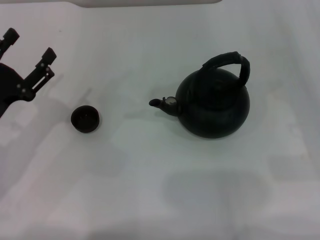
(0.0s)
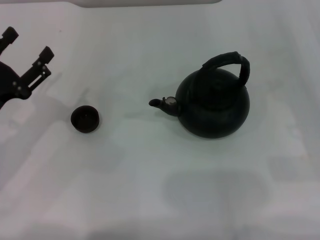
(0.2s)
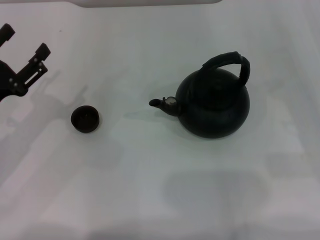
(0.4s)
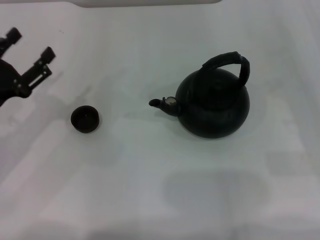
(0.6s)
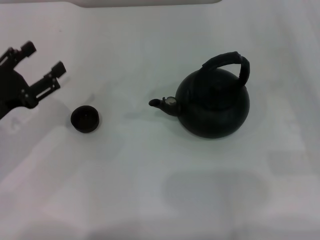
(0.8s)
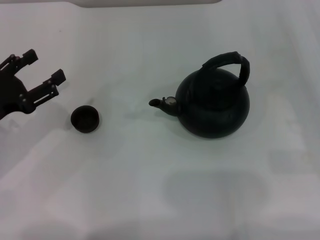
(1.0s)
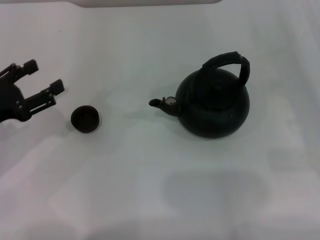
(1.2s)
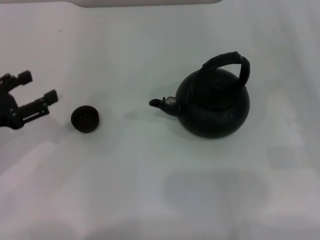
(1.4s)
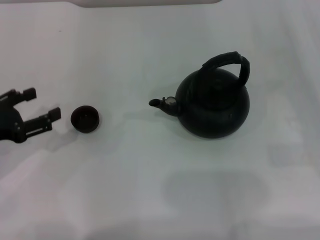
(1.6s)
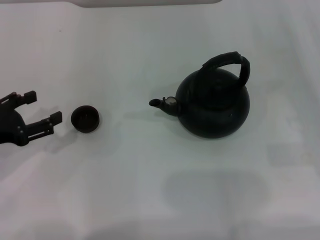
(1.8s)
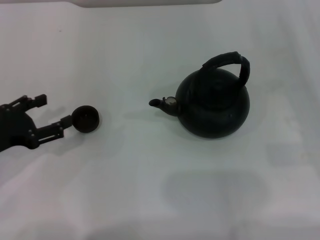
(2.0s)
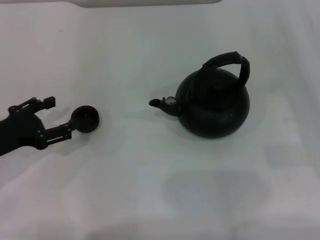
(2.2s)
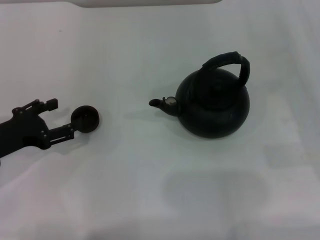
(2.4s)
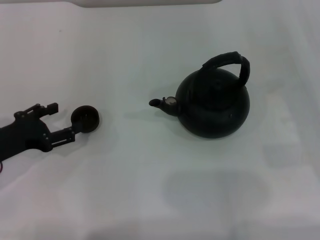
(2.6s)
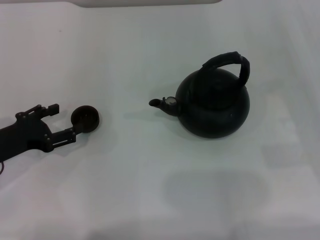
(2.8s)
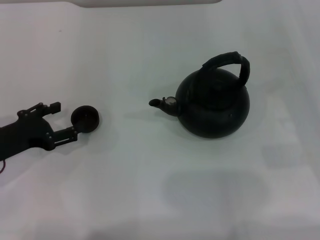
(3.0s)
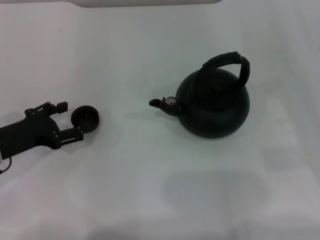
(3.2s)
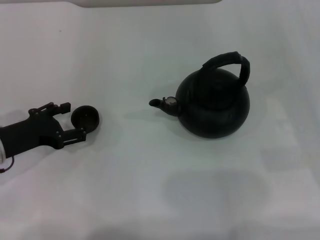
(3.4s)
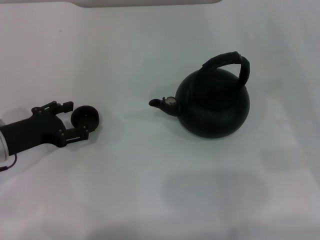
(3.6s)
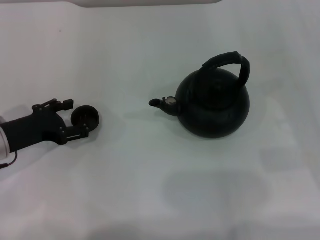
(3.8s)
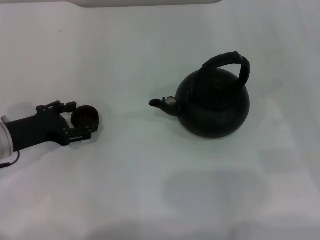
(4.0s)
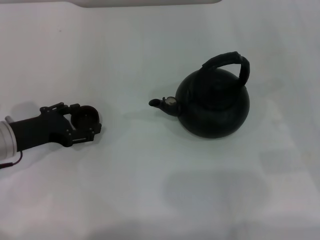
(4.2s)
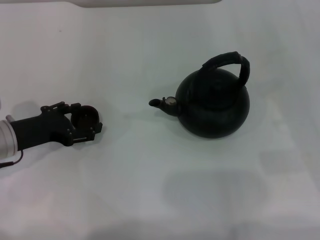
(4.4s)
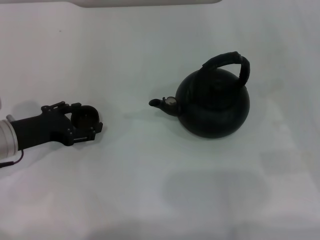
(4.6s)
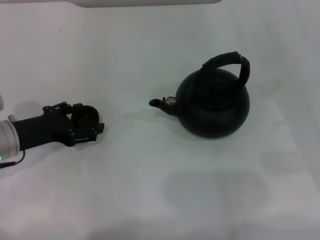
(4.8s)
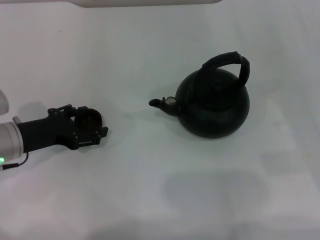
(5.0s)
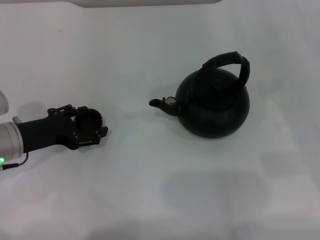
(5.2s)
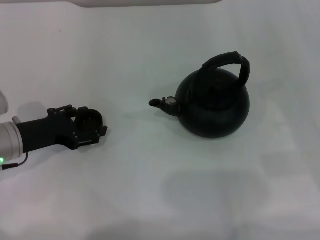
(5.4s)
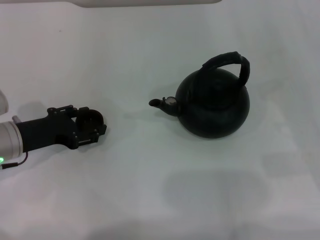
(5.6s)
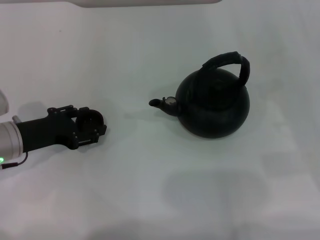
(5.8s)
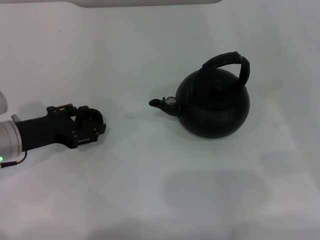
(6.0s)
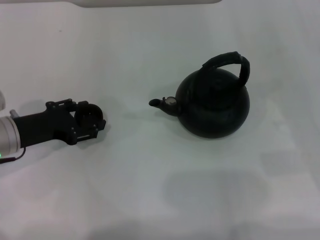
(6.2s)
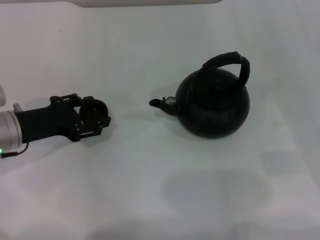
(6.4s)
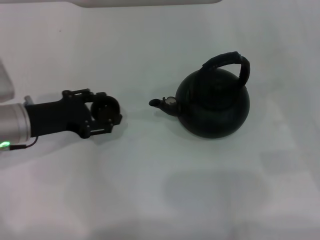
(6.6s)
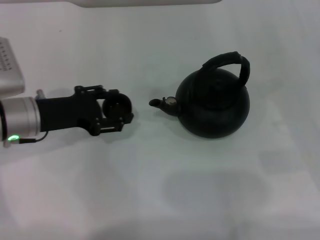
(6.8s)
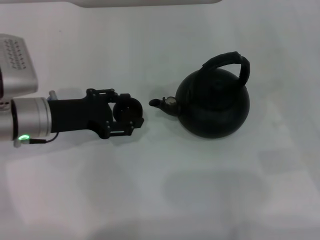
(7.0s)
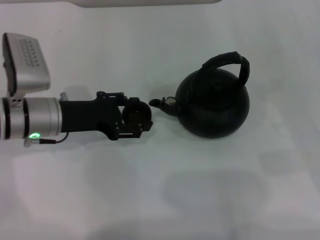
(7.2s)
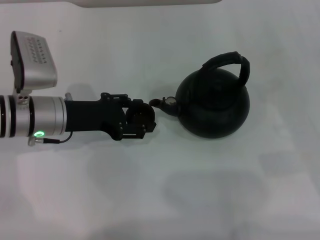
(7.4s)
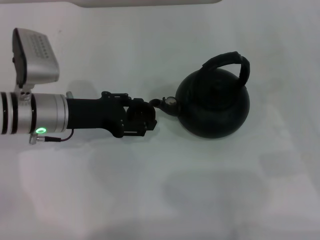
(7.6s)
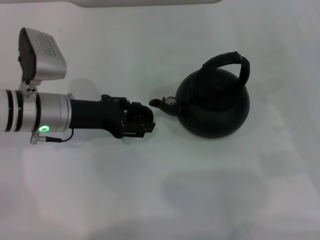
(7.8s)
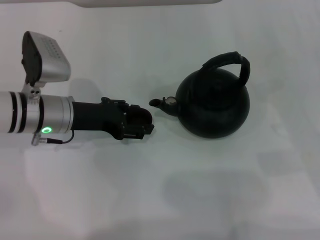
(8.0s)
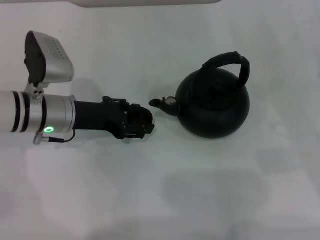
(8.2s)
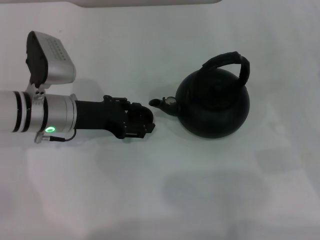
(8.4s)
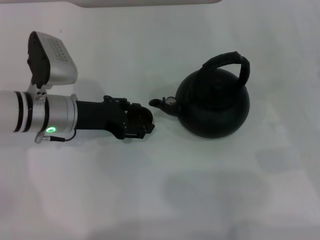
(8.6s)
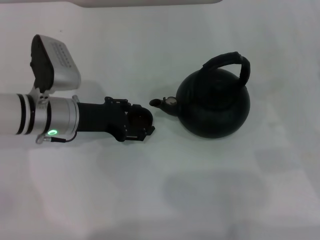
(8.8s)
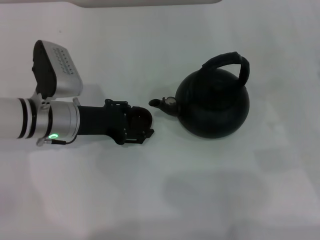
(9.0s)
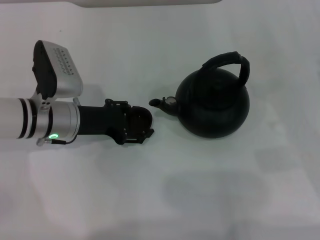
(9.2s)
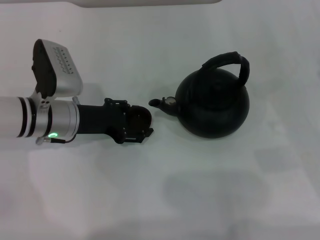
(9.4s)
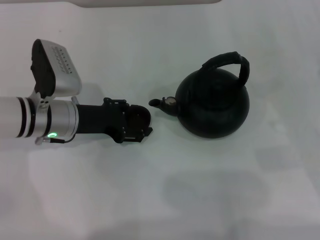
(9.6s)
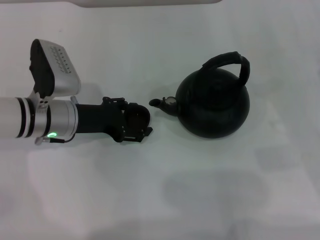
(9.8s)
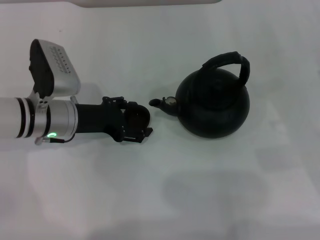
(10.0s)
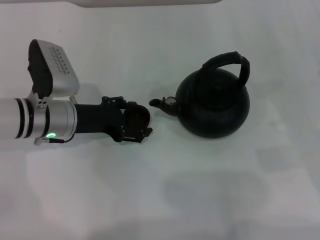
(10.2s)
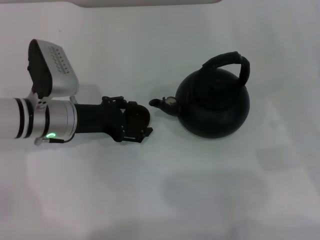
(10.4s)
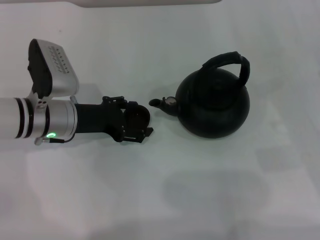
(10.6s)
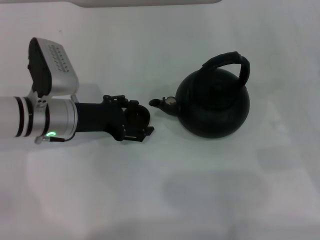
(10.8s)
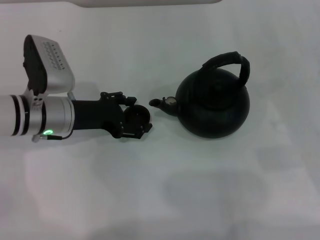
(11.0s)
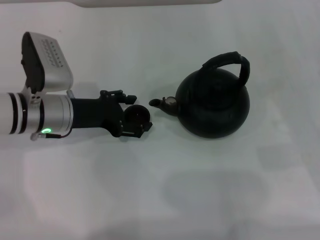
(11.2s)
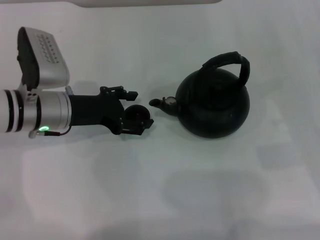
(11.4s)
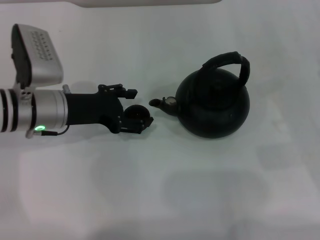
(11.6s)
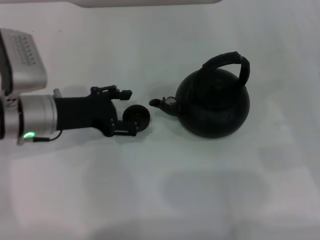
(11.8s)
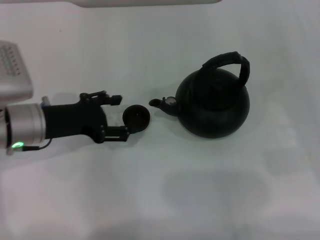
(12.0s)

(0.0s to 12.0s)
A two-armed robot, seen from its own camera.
Task of the whole recording: Grasp the handle of the teapot with one hand and pour tea into the teacup.
Step, 0.0s - 6.6s: Pick up the teacup with the left gripper.
Step, 6.8s - 11.2s: Place the teacup in the center of view with the left gripper.
0.0s - 1.6s: The left gripper ends up roughly 5 cm from where it was.
1.6s - 3.0s: The left gripper ends up roughly 5 cm from where it was.
3.0s - 4.4s: The grippers move only a little.
4.4s - 6.0s: The left gripper closes.
6.0s - 7.6s: The left gripper heads to the right, covering some 5 cm.
7.6s - 9.0s: There are only small adjustments of the grippers.
9.0s - 10.4s: The left gripper opens.
10.4s - 12.0s: The left gripper ends up approximately 5 cm from where it was.

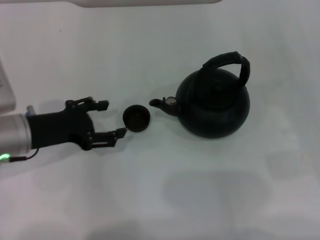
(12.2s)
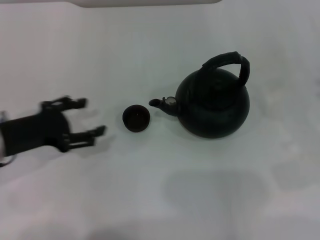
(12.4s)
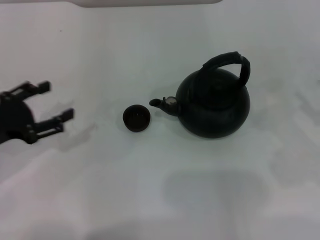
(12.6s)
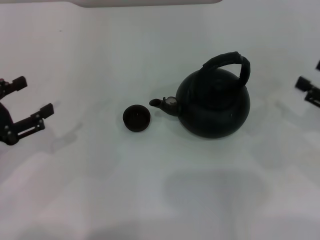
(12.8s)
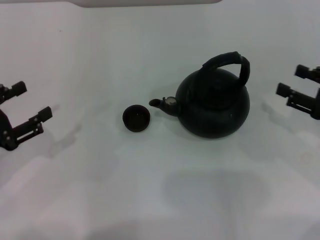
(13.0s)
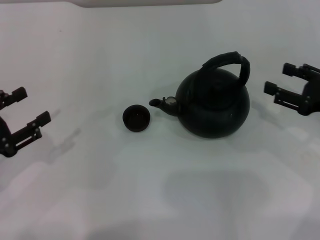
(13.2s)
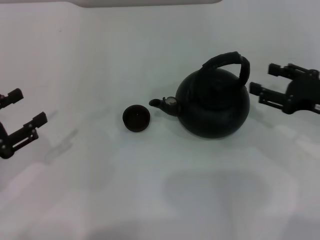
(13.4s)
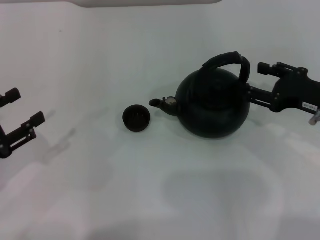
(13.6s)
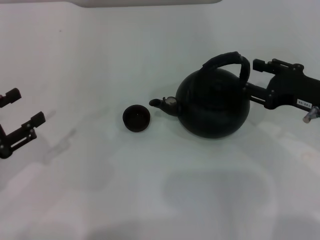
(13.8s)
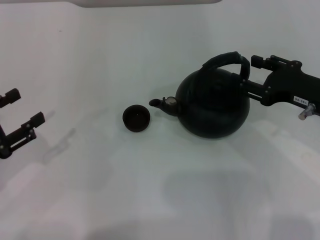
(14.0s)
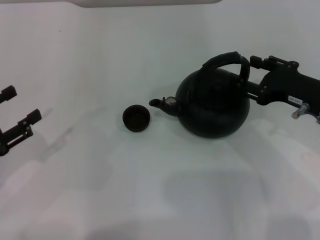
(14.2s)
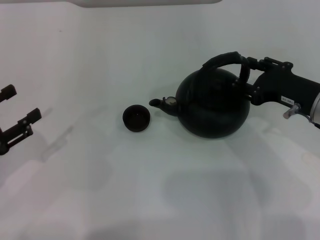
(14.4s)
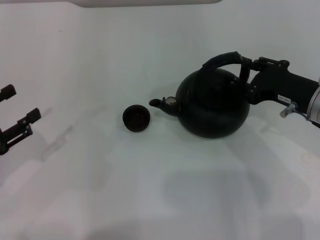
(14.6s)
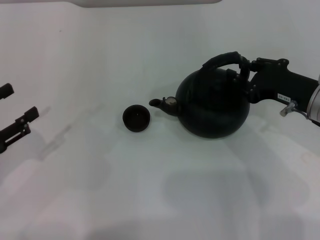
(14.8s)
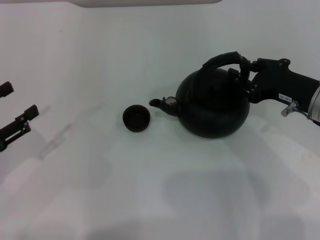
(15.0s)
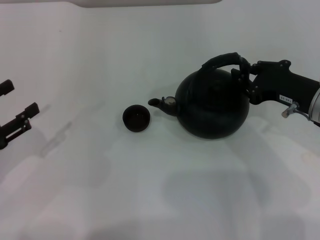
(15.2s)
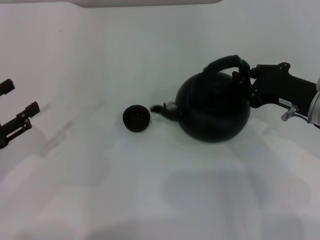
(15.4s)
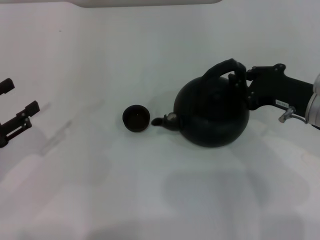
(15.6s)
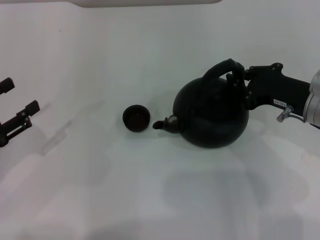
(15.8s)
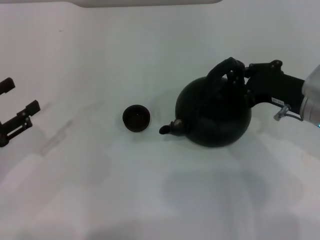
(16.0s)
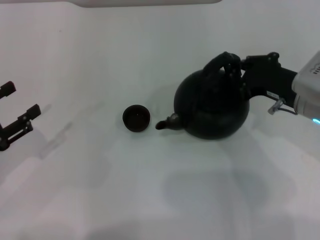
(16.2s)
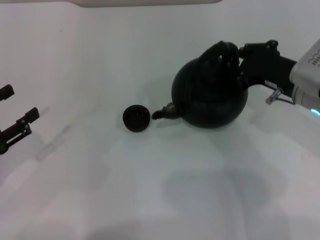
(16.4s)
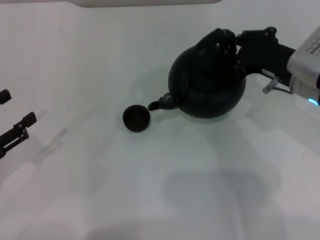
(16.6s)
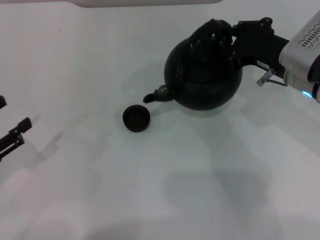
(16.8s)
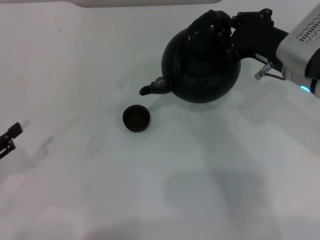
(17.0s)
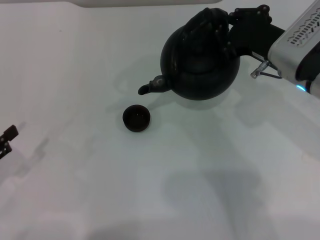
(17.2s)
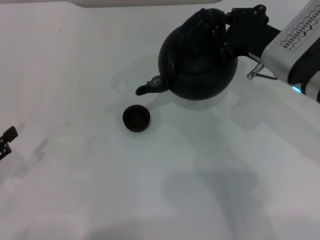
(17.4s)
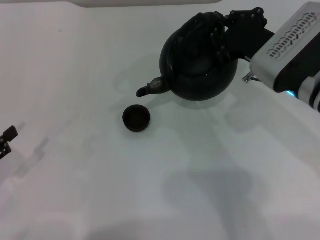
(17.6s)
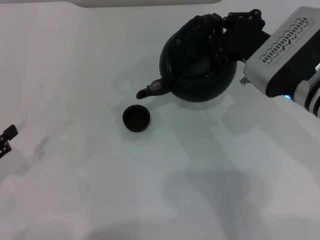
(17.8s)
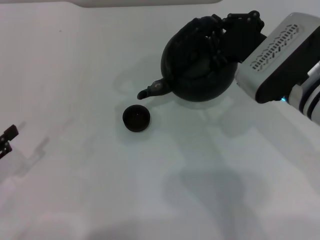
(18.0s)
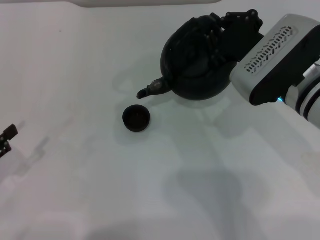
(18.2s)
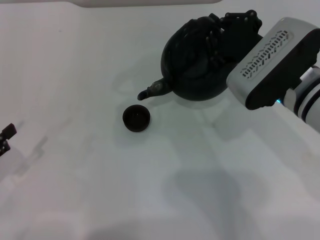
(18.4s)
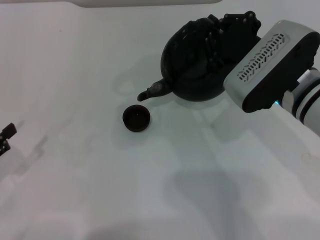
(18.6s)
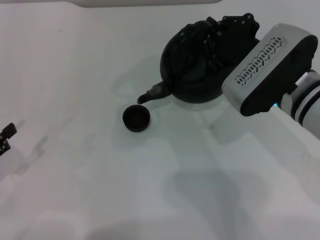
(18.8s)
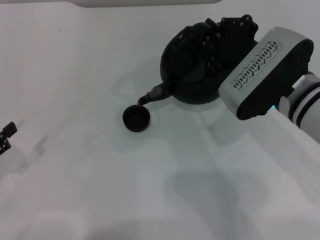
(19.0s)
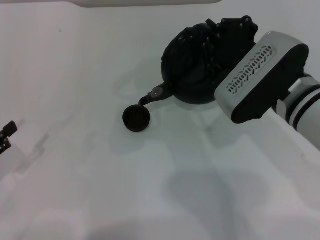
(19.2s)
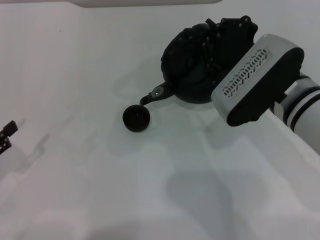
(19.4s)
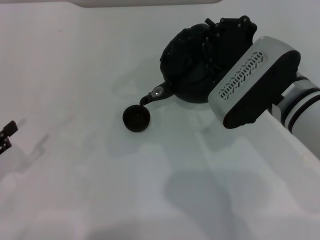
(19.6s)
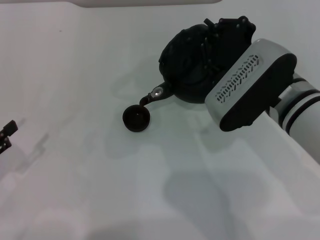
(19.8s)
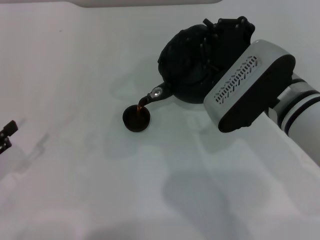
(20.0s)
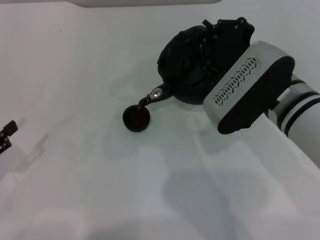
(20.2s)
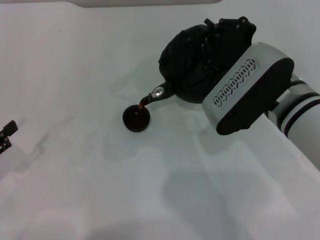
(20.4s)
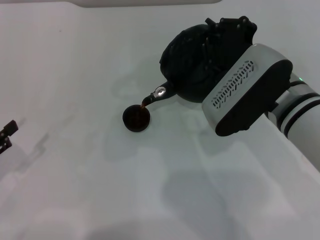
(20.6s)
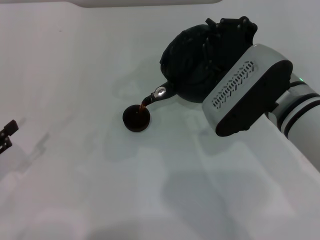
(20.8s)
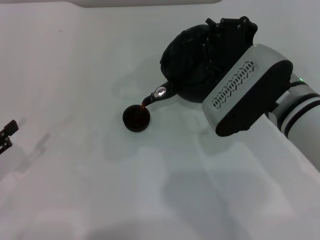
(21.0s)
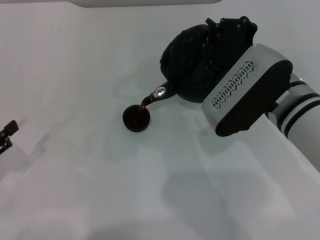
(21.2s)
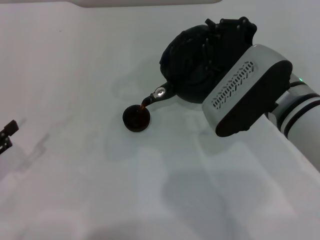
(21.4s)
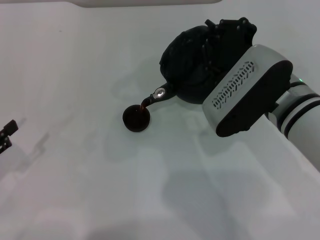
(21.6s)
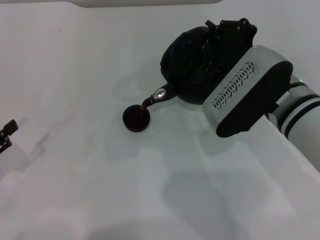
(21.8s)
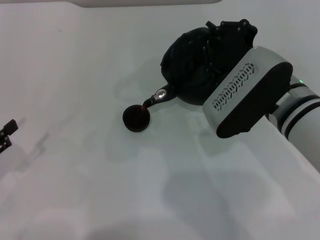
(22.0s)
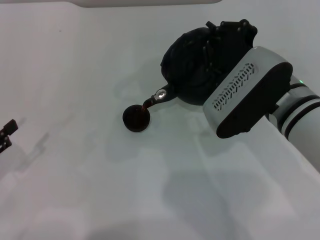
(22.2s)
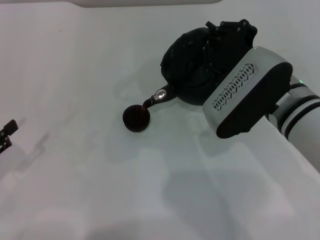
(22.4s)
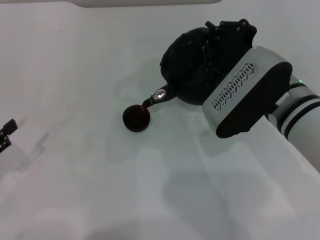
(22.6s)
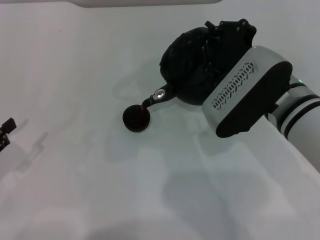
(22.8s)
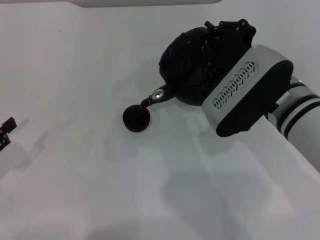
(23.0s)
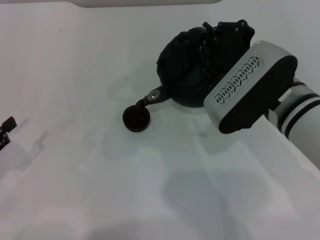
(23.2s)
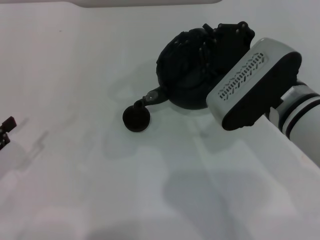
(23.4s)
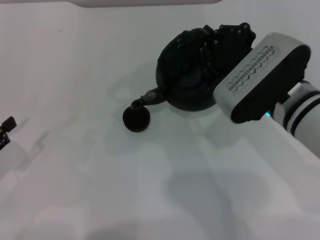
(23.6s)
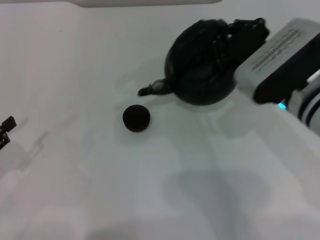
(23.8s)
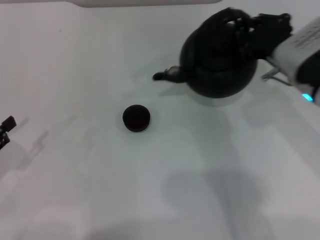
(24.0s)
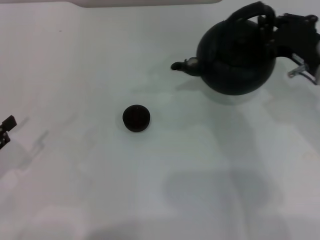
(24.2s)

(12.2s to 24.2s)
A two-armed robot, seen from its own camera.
Task of the whole recording: Grasp the handle of the teapot with one hand and pour tea into the teacup.
Step, 12.2s - 17.0s: Pick up the teapot with the right gripper.
Step, 17.2s - 24.0s: Pour tea into the teacup with the right gripper.
12.2s - 13.8s: The left gripper heads to the left and backward, covering roughly 15 cm, and closes, while the right gripper moves to the left, roughly 10 cm.
13.8s - 15.2s: The right gripper closes.
15.2s - 16.6s: The grippers stay close to where they were, moving slightly.
16.6s - 18.2s: The right gripper goes about 5 cm to the left.
18.2s - 19.8s: The grippers move only a little.
19.8s - 22.6s: Neither gripper changes place.
22.6s - 24.2s: The right gripper shifts approximately 10 cm to the right.
